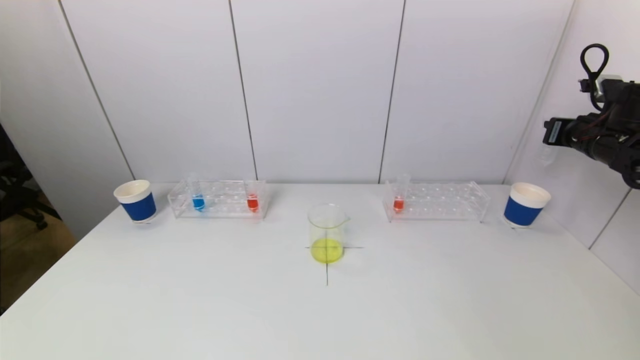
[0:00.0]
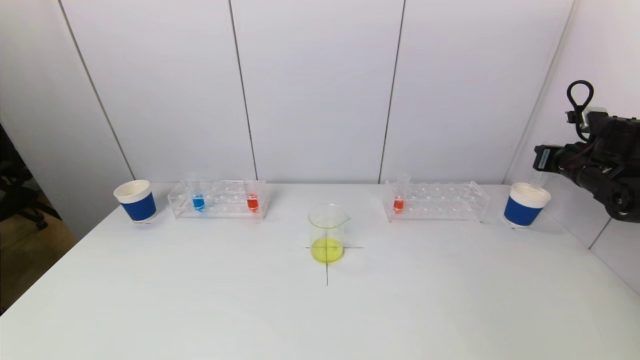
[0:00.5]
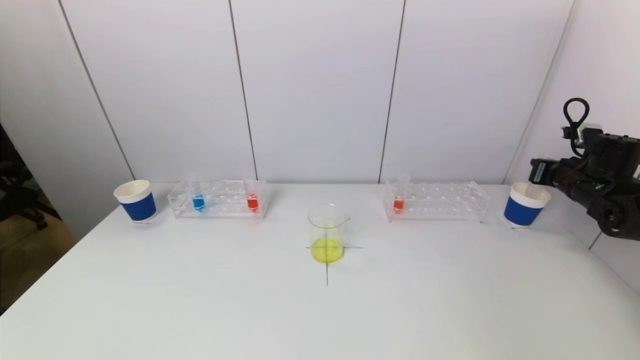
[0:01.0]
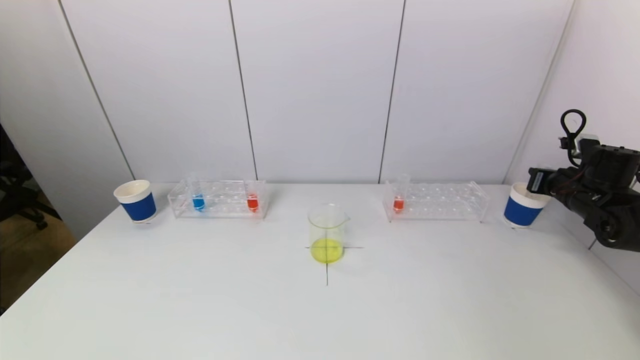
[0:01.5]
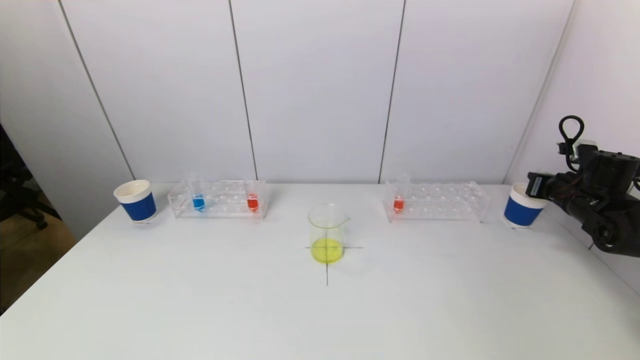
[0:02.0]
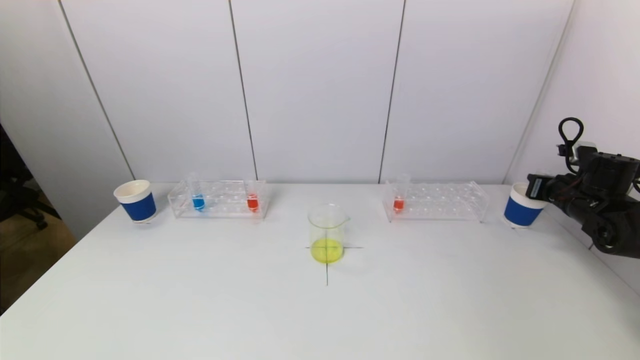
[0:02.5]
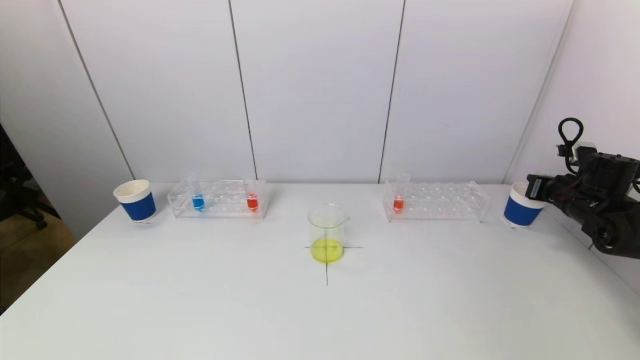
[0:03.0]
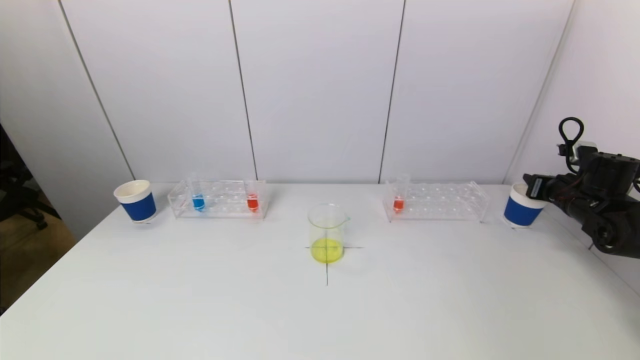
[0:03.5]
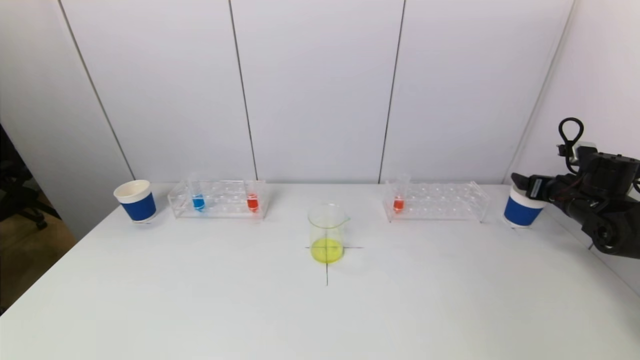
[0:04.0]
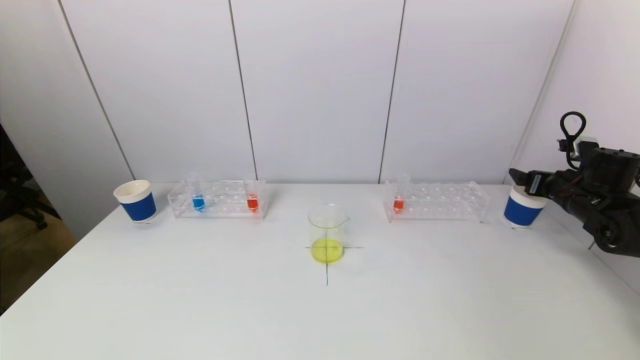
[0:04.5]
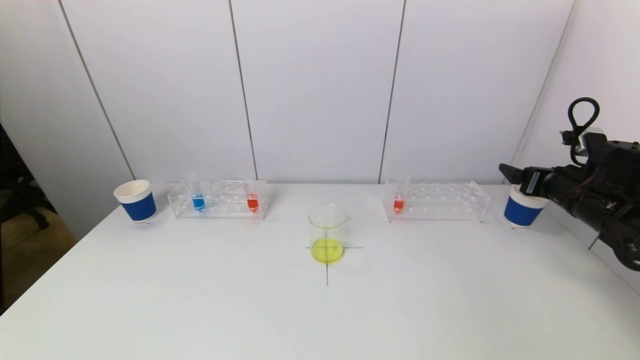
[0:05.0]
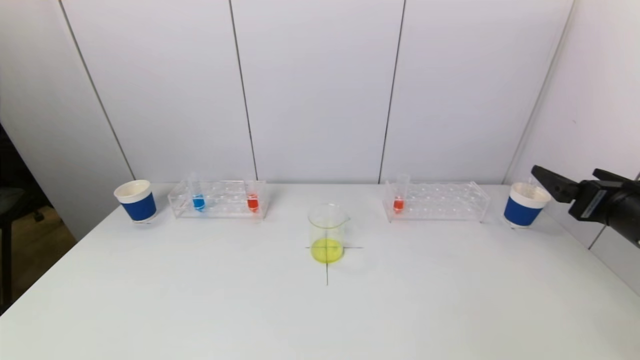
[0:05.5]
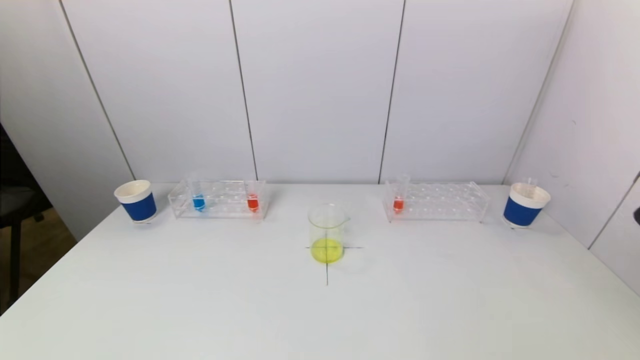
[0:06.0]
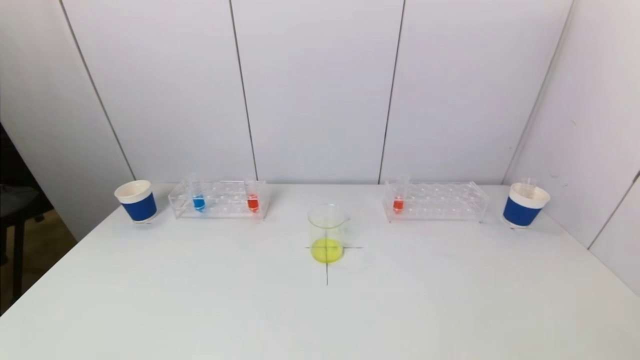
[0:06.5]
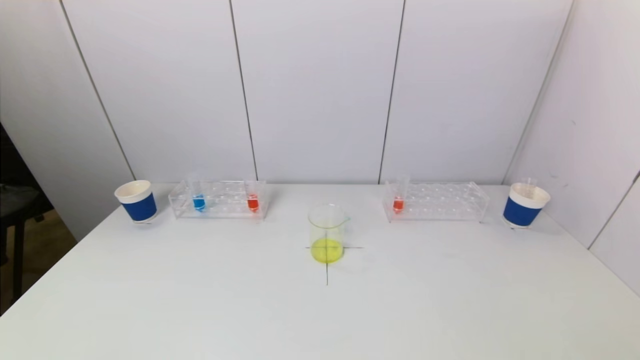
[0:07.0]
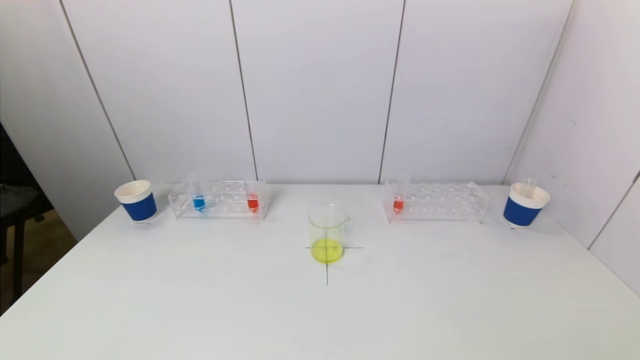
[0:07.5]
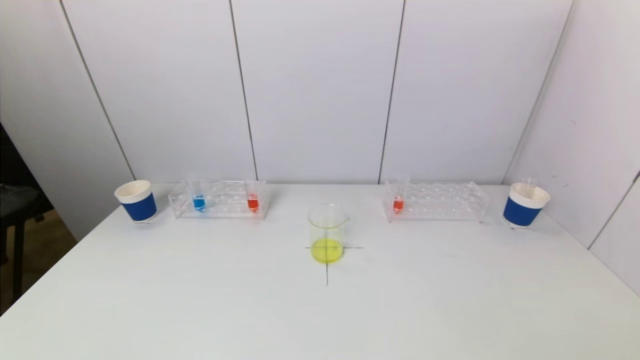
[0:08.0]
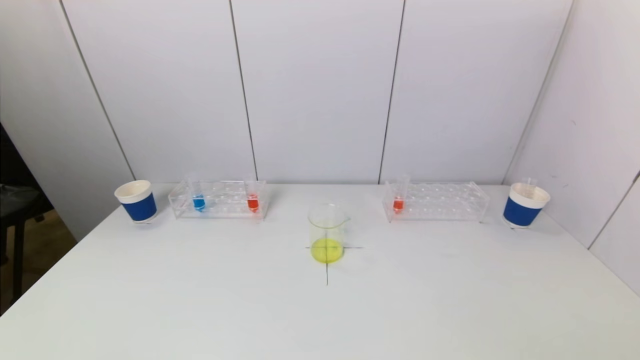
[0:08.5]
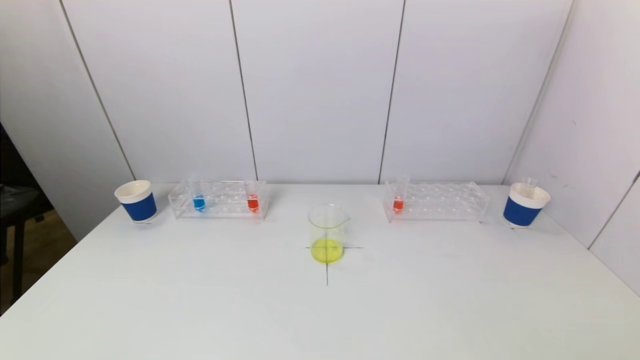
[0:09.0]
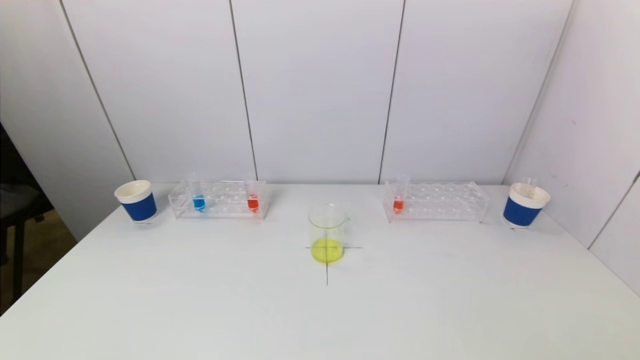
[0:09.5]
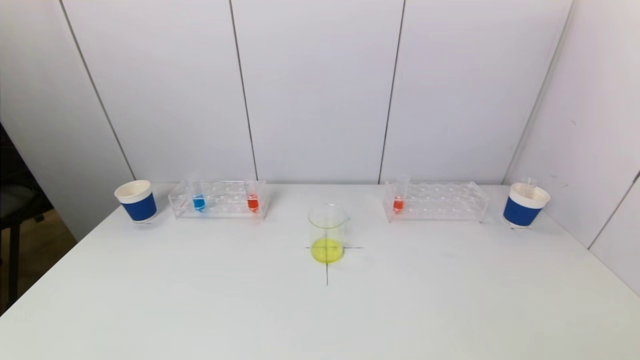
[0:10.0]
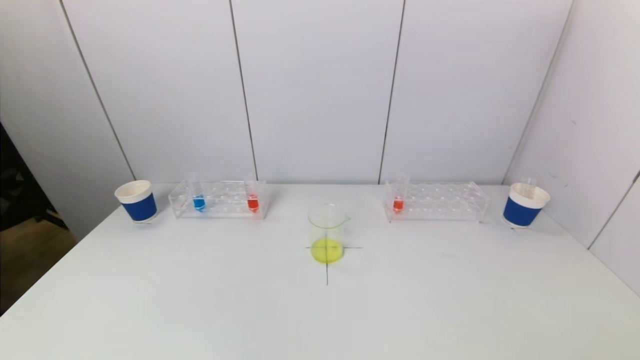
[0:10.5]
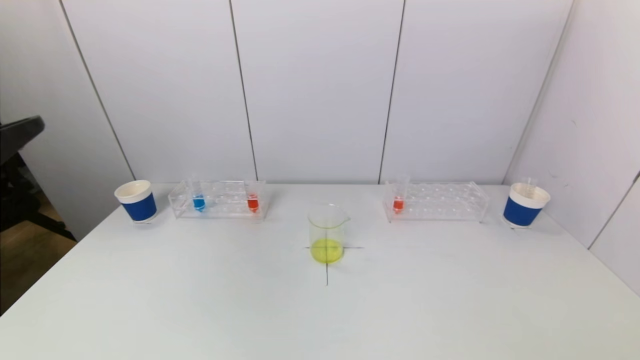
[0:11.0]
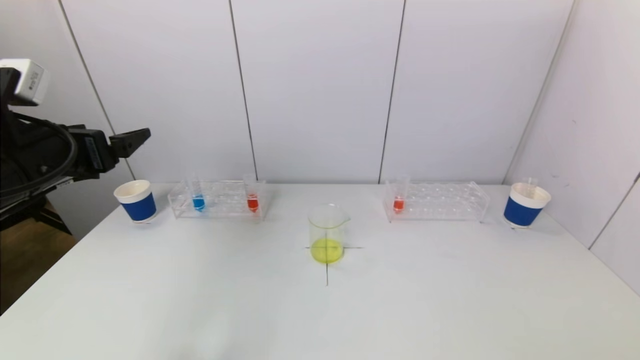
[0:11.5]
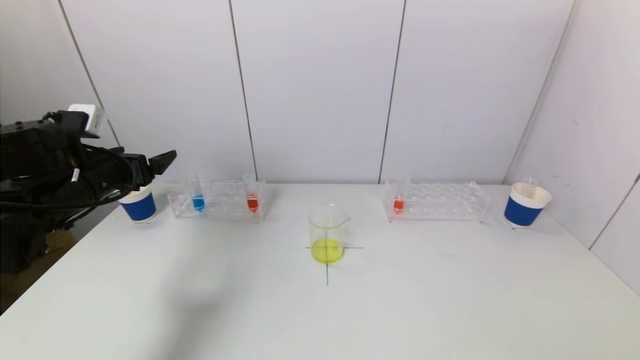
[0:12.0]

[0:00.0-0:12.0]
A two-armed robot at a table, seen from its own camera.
Task of the whole recording: pick up a test tube with pigment on left test tube rack and a test tube with pigment on right test tube rack by grippers and pour them into the beaker.
Step, 0:00.0 to 0:03.5: Place the test tube into the paper cup with the right gripper.
0:00.0 to 0:02.0: The right gripper heads downward, covering roughly 10 cm.
0:02.0 to 0:04.0: The right gripper opens.
0:04.0 to 0:06.0: The right gripper is displaced backward by roughly 30 cm.
0:10.0 to 0:12.0: The left gripper heads forward, covering approximately 35 cm.

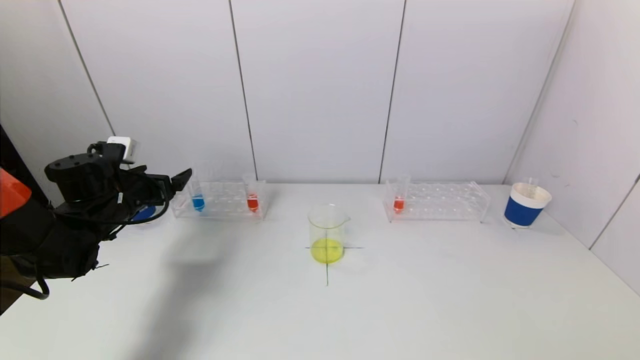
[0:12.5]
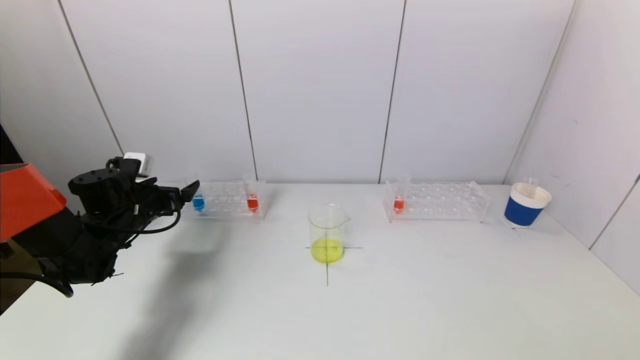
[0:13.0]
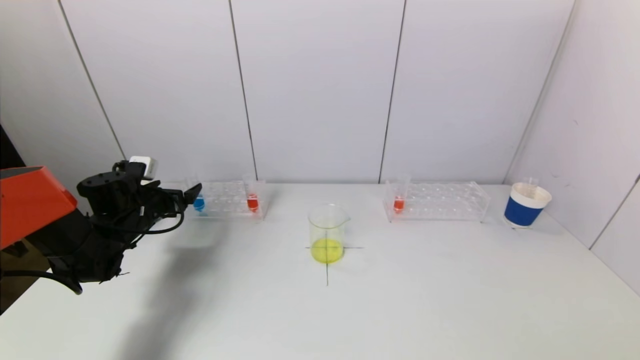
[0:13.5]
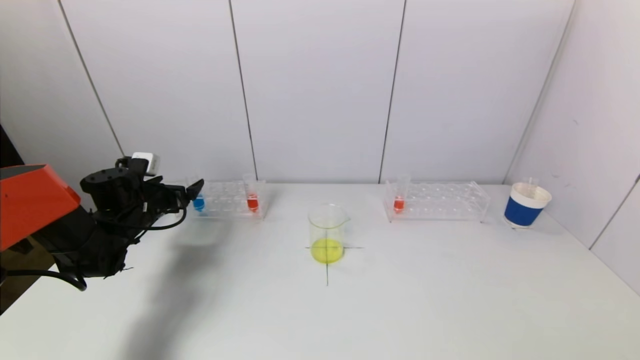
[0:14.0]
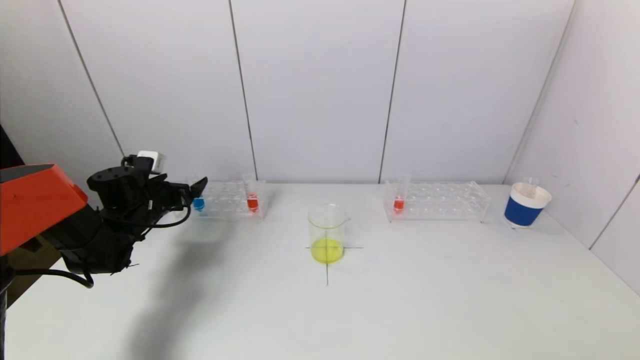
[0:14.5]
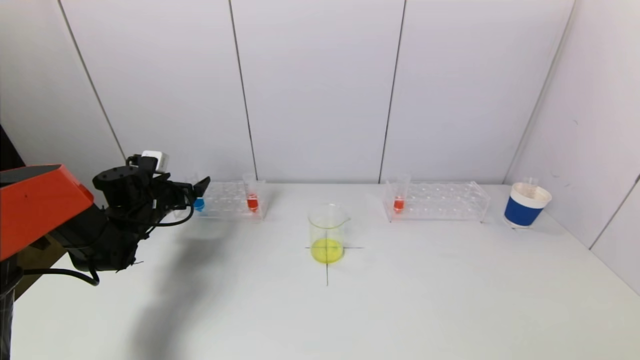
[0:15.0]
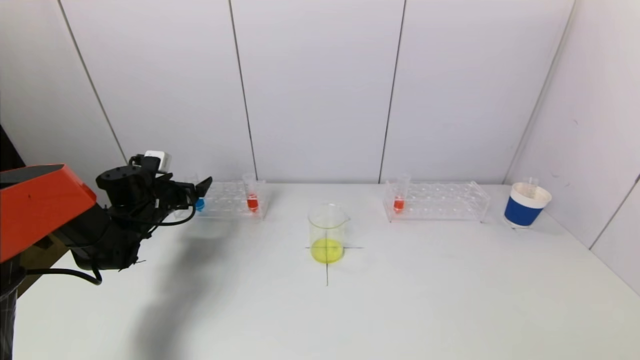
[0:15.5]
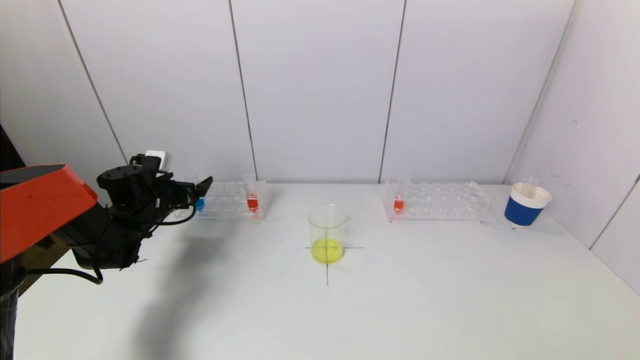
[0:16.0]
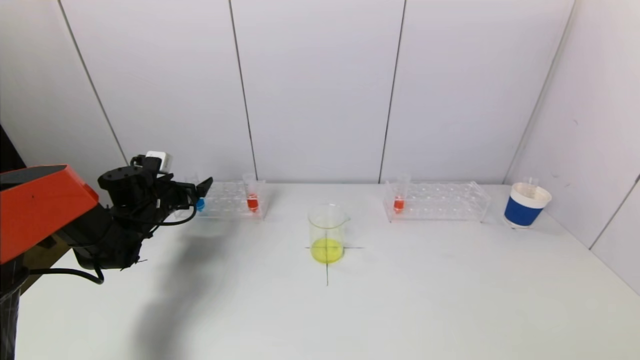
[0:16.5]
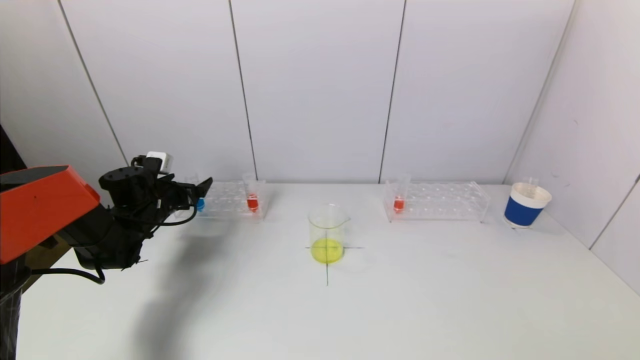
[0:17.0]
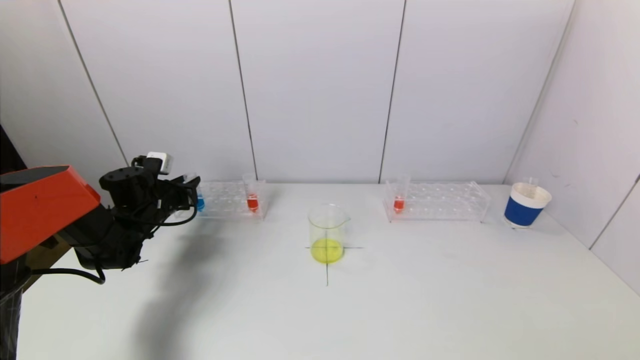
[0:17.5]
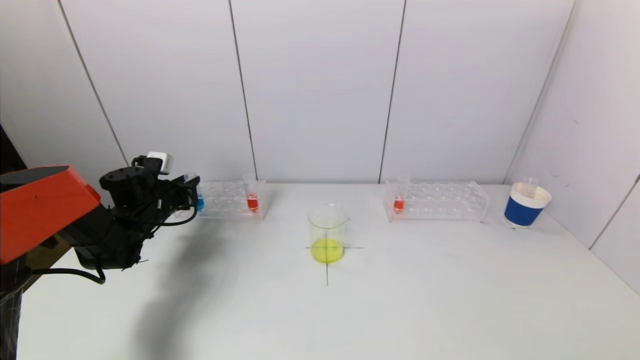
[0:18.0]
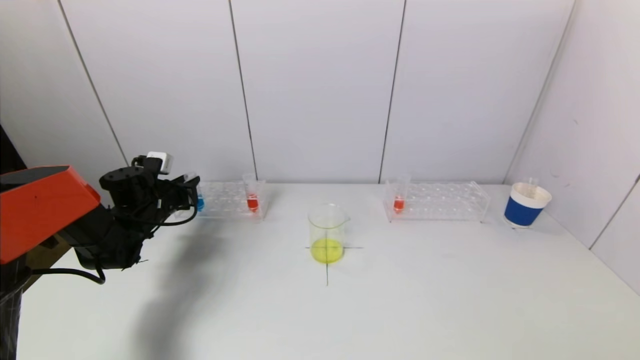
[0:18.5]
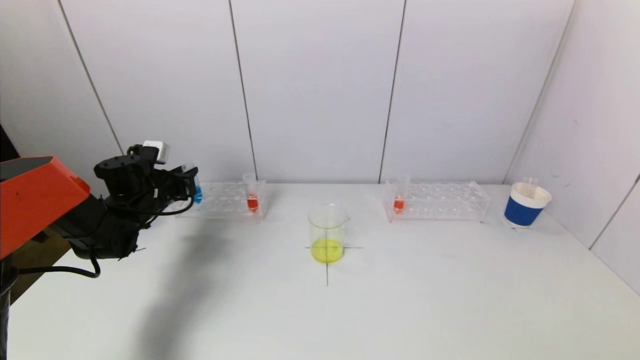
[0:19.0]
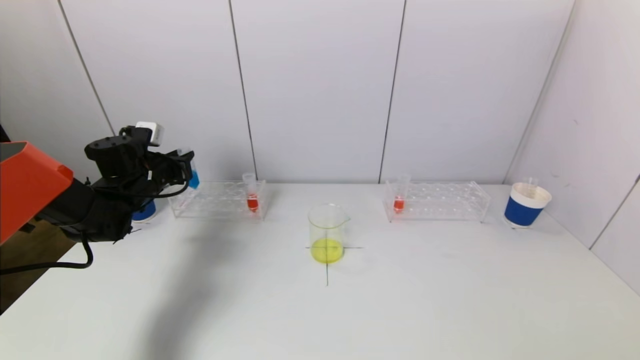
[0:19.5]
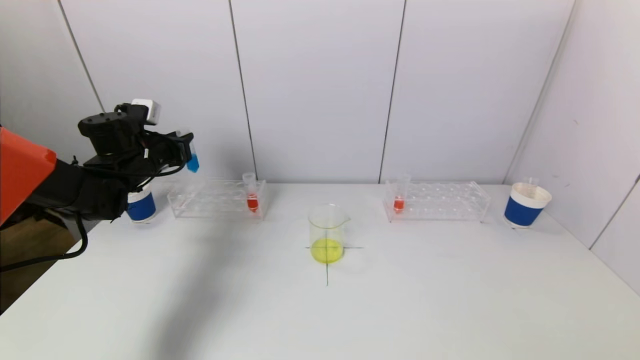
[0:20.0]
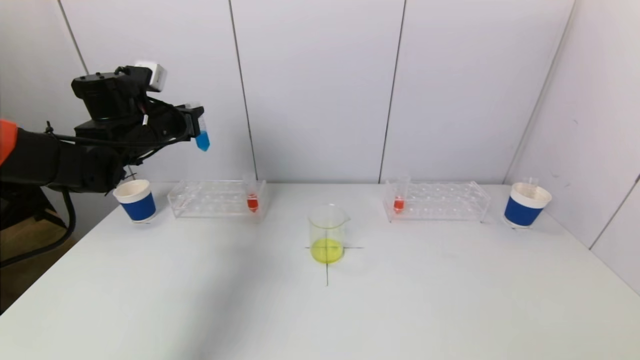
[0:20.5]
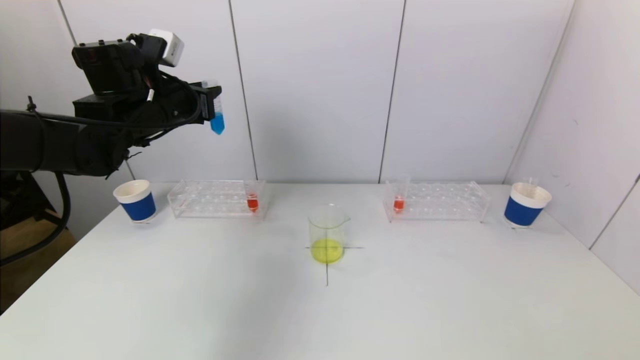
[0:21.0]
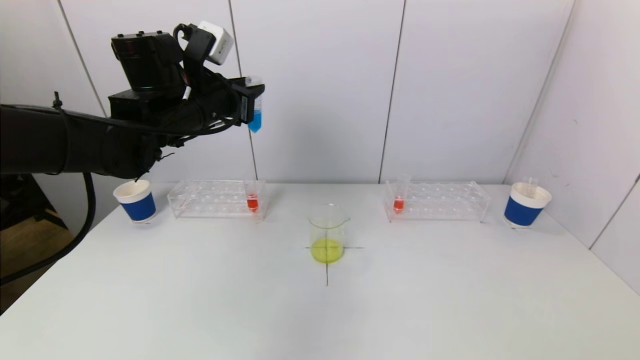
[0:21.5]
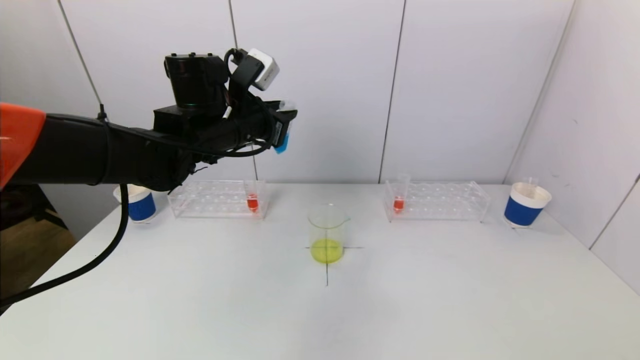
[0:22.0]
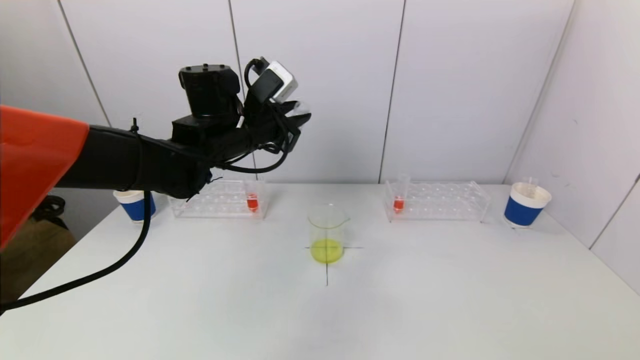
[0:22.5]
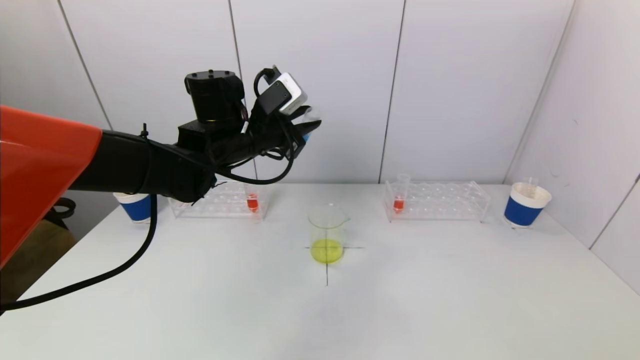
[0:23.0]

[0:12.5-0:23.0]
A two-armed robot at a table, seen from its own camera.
Task of the whole recording: pick up a test tube with pigment on left test tube rack and a test tube with pigment on right test tube rack by grippers and pour them into the beaker.
Step, 0:12.5 to 0:17.5: Grasp the blue reagent with the left gripper.
0:12.5 to 0:14.5: The left gripper ends up some 5 cm from where it was.
0:14.5 to 0:16.5: The grippers make only small movements.
0:16.5 to 0:19.0: The left gripper closes.
0:19.0 to 0:21.0: The left gripper shifts some 20 cm upward and to the right.
0:21.0 to 0:23.0: The left gripper goes some 10 cm to the right.
